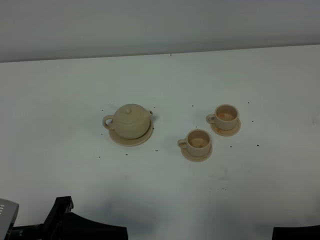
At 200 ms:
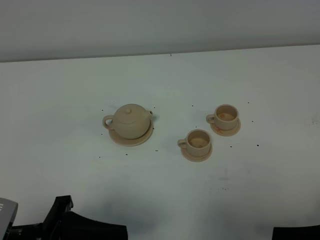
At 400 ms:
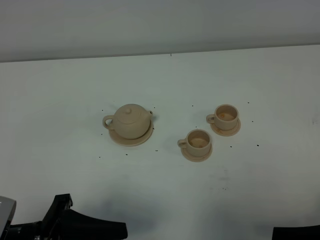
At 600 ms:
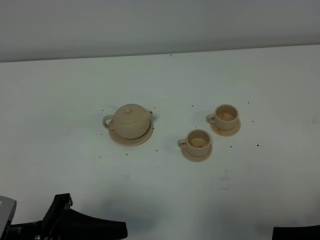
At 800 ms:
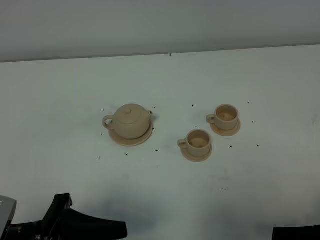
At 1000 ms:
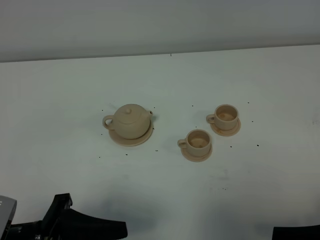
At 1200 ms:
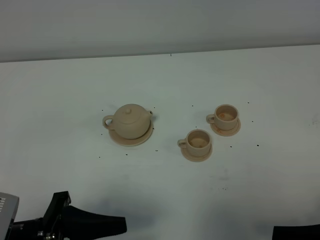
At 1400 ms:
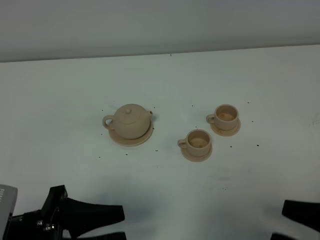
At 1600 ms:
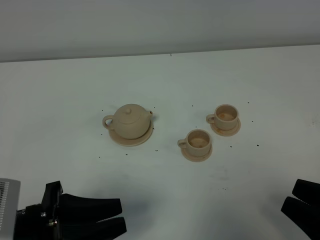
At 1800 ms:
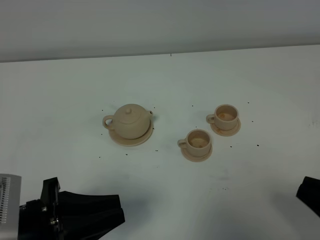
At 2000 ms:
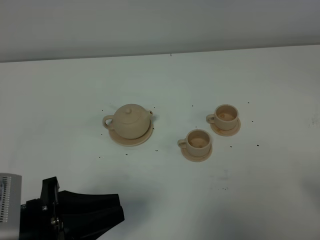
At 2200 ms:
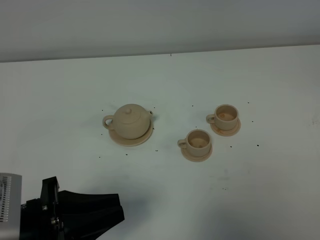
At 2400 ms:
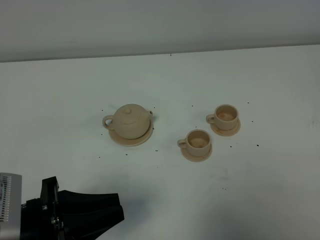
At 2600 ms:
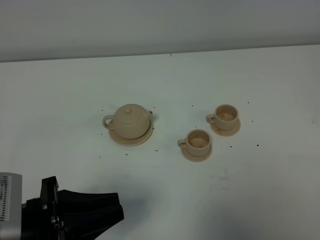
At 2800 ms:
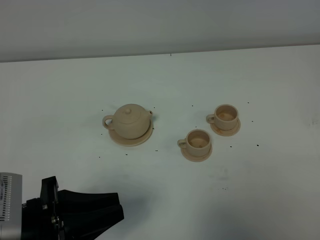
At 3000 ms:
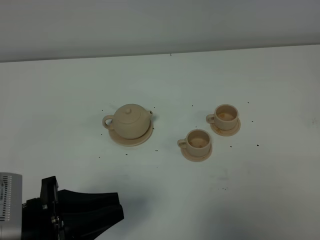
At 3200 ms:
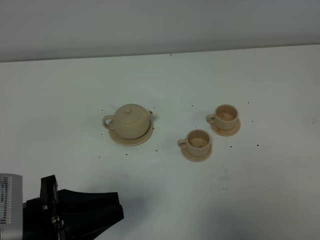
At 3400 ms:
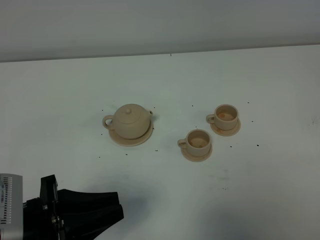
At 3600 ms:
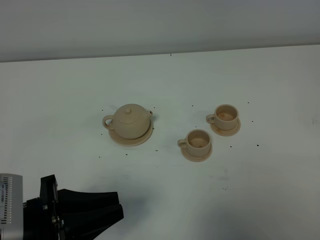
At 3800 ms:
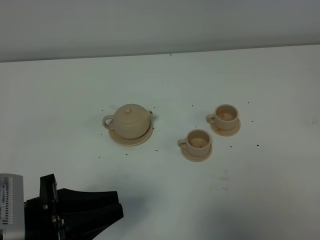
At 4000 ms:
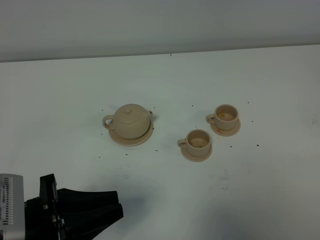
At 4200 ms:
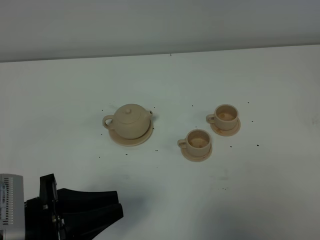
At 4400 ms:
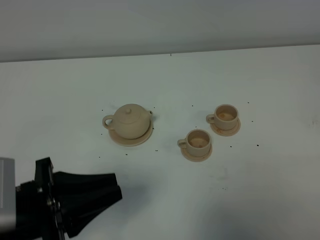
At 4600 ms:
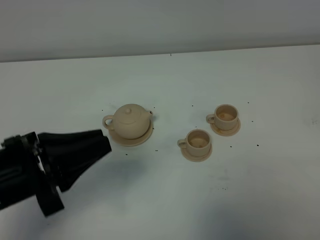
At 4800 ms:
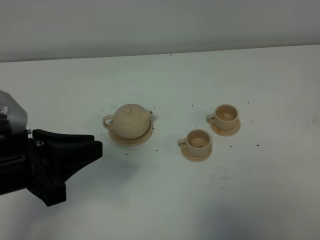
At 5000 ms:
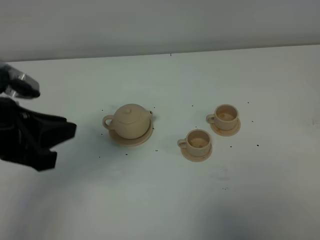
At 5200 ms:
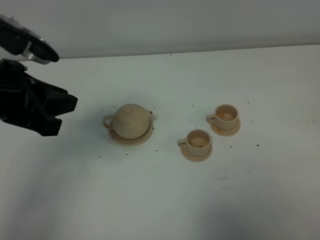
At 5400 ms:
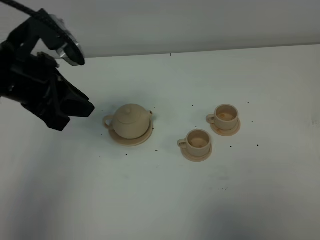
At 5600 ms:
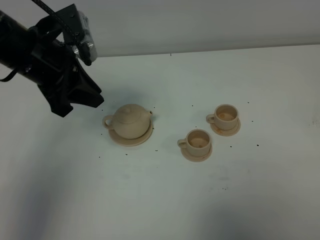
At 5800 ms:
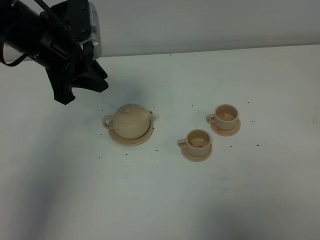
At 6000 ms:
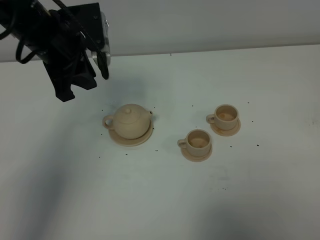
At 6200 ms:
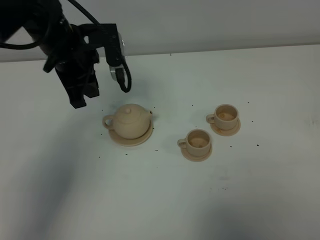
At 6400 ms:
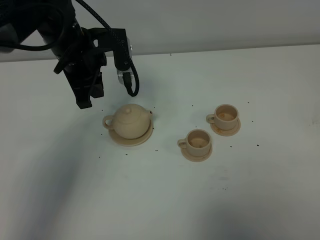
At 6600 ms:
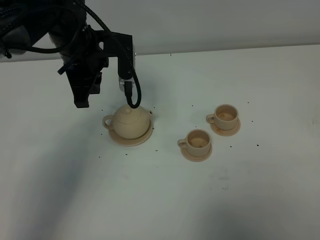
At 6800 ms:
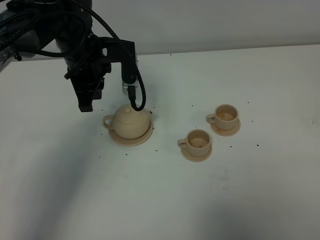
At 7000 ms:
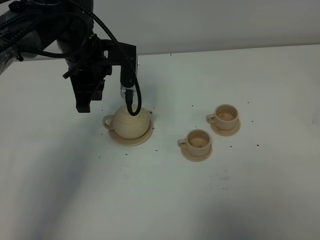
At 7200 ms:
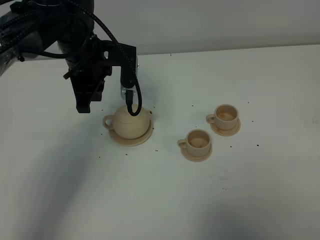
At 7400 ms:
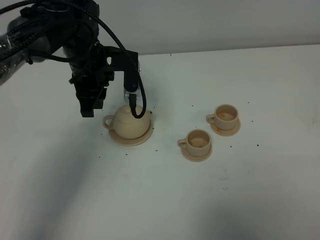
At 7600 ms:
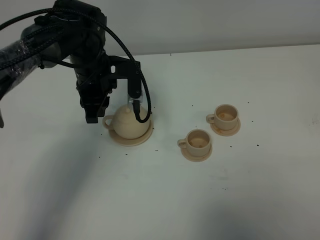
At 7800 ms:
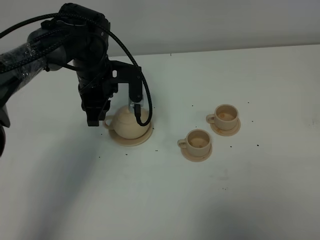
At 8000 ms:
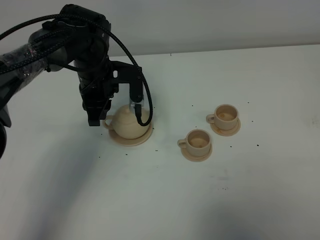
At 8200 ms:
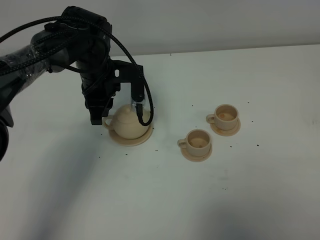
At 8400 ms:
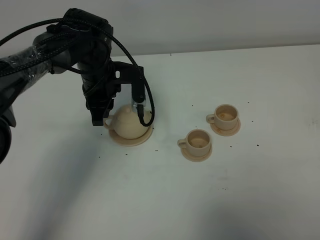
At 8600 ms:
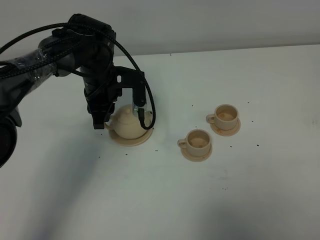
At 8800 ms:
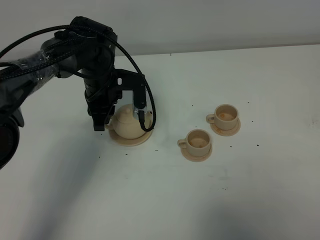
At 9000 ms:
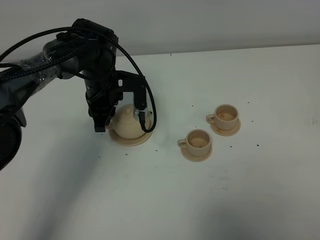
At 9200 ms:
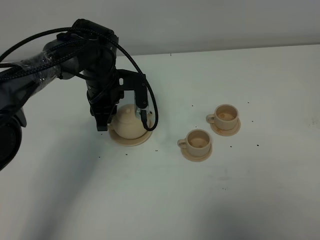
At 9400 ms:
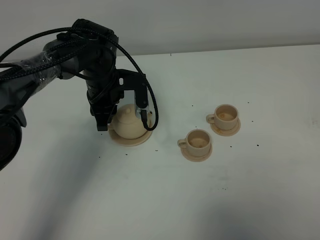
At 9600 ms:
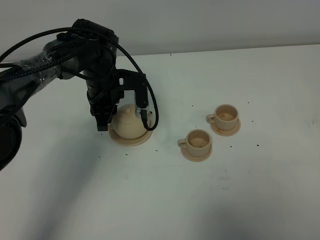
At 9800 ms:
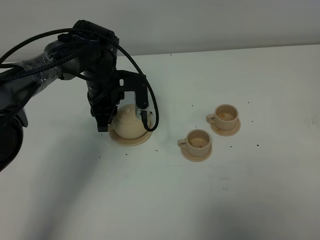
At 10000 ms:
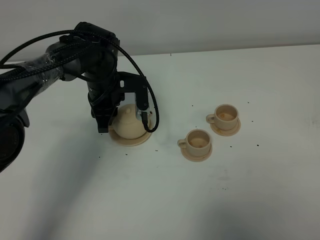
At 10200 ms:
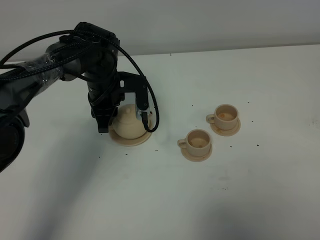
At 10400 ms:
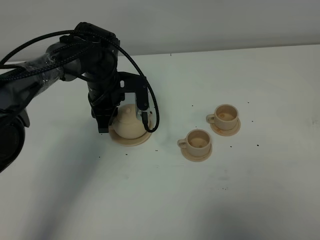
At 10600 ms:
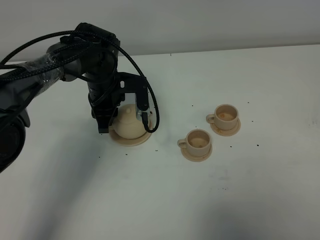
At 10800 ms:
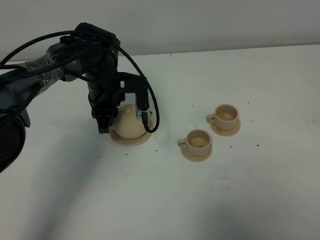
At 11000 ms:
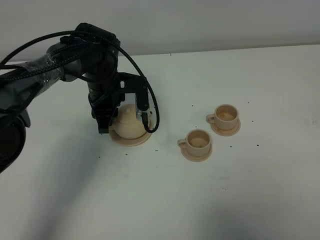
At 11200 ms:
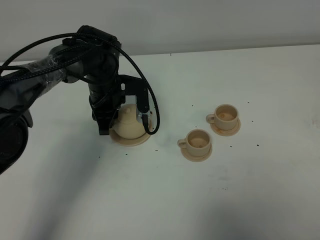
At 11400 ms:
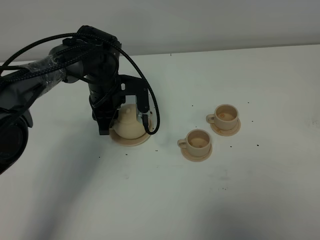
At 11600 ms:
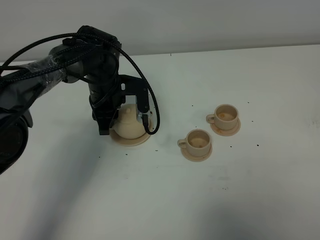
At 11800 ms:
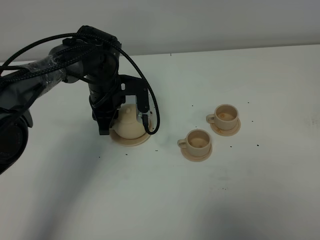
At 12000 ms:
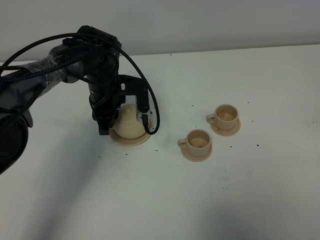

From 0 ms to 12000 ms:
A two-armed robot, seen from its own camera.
Task of the whole recording: grasp the brown teapot and pour the tea into the two brown teacups one by one, put the brown teapot back in its original place.
From 0 ms to 1600 ms: The right gripper closes its fingers.
From 1600 ms to 3000 ms: The right gripper heads to the right, covering roughly 5 cm, and closes.
From 3000 ms to 4400 ms: The grippers move only a little.
From 4400 ms to 6000 ms: The left gripper heads forward, covering about 25 cm.
From 6000 ms to 7600 ms: The left gripper goes about 10 cm downward.
From 7600 ms to 9000 ms: There are only small adjustments of the grippers.
From 9000 ms to 10400 ms: Both grippers stay about where they are.
From 10400 ms to 12000 ms: The two grippers keep their place.

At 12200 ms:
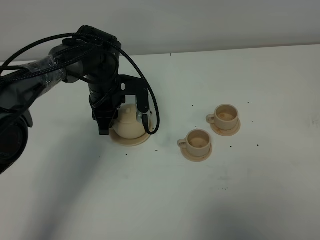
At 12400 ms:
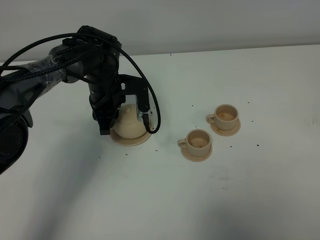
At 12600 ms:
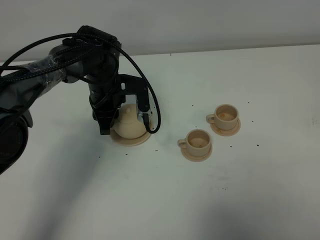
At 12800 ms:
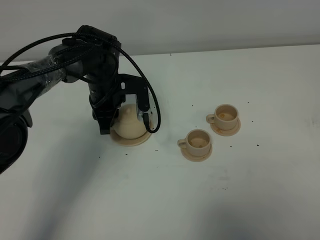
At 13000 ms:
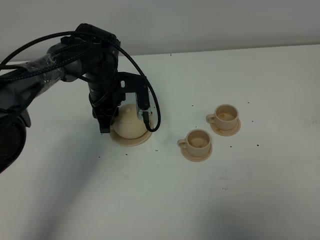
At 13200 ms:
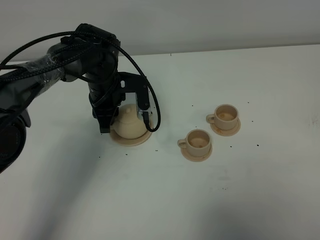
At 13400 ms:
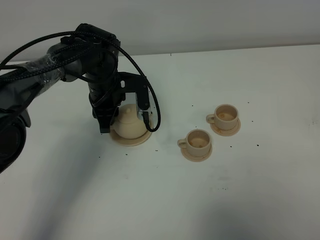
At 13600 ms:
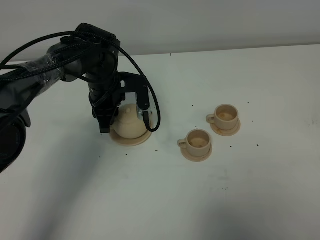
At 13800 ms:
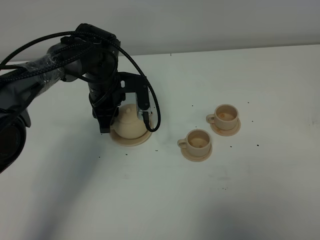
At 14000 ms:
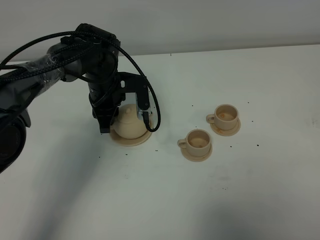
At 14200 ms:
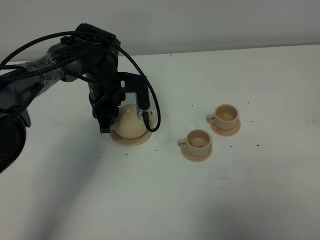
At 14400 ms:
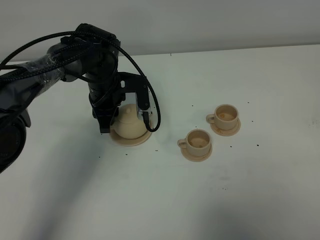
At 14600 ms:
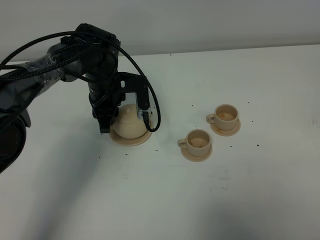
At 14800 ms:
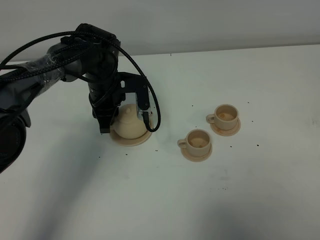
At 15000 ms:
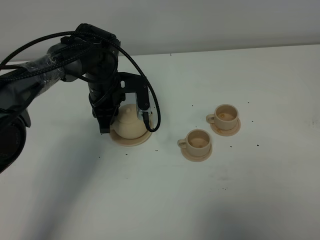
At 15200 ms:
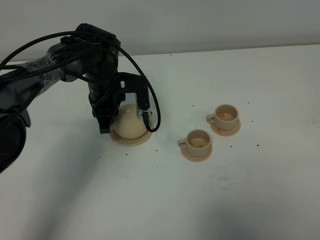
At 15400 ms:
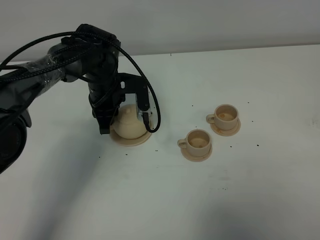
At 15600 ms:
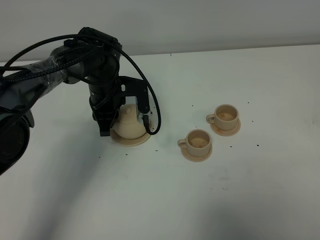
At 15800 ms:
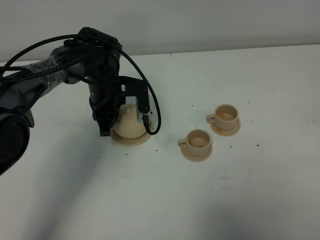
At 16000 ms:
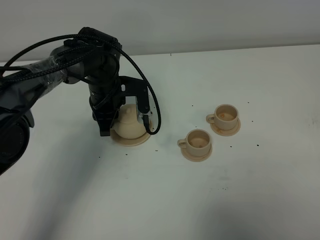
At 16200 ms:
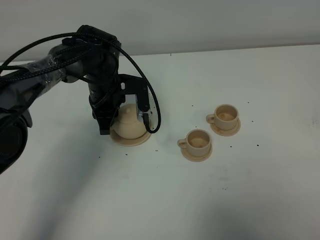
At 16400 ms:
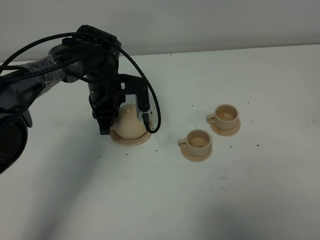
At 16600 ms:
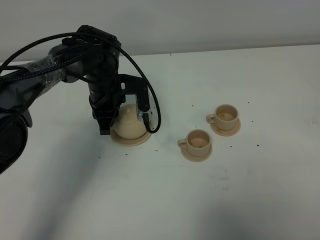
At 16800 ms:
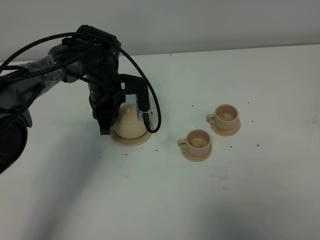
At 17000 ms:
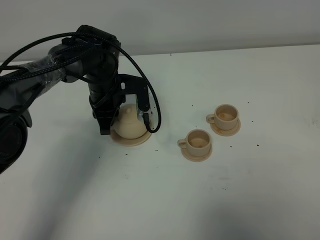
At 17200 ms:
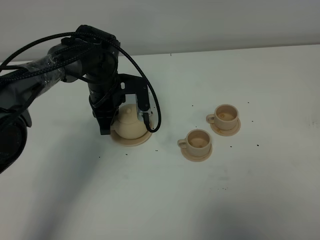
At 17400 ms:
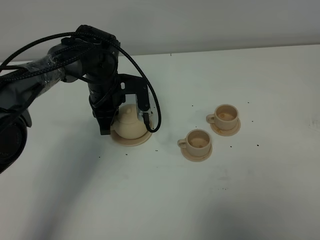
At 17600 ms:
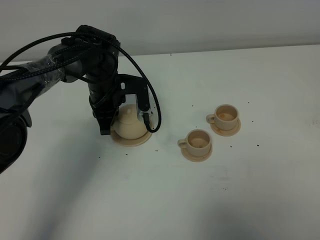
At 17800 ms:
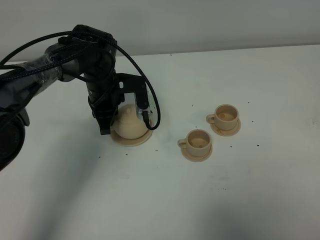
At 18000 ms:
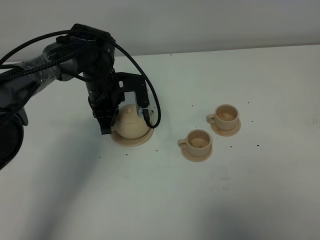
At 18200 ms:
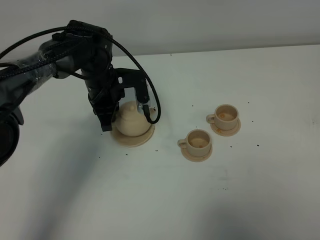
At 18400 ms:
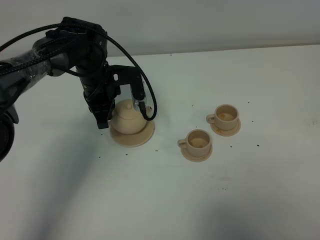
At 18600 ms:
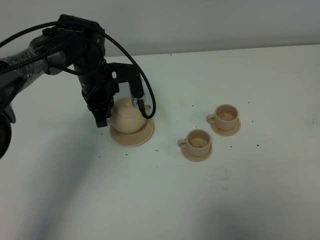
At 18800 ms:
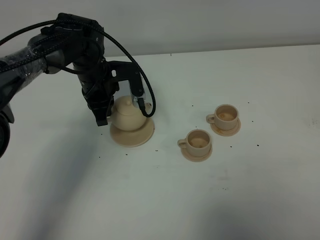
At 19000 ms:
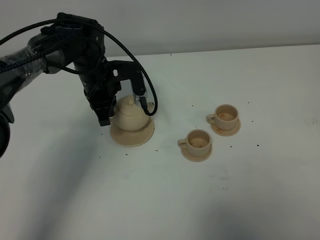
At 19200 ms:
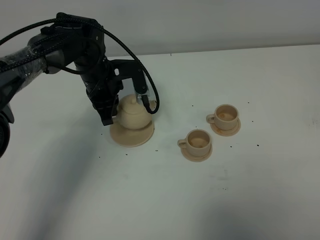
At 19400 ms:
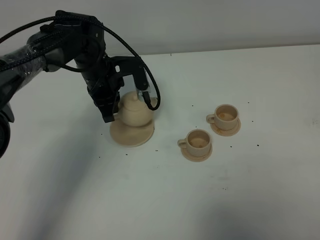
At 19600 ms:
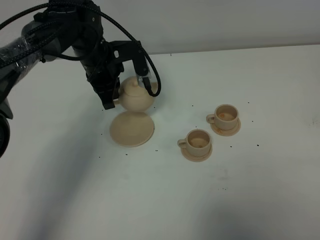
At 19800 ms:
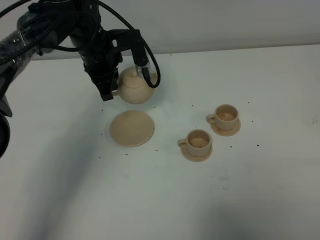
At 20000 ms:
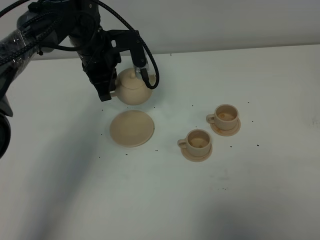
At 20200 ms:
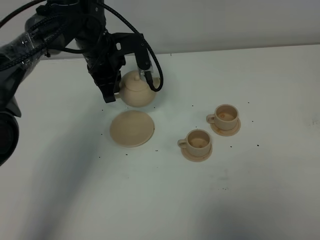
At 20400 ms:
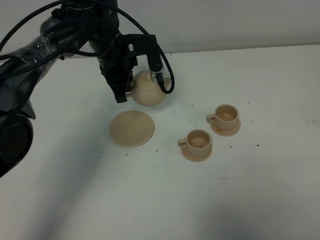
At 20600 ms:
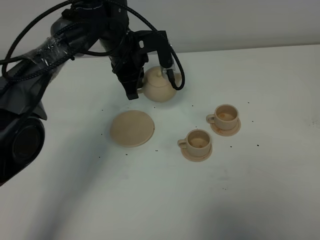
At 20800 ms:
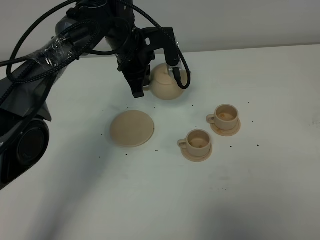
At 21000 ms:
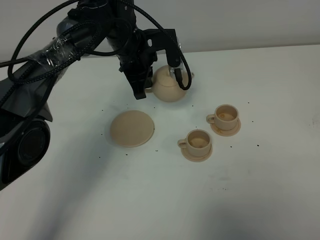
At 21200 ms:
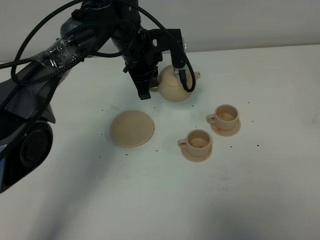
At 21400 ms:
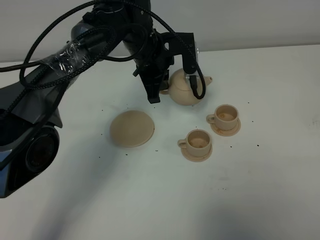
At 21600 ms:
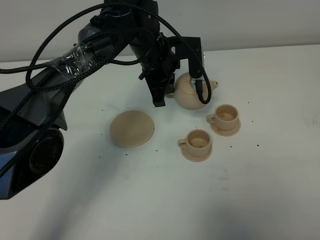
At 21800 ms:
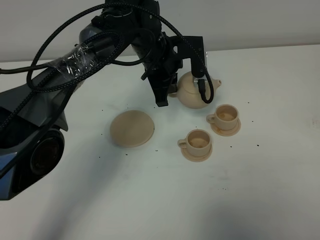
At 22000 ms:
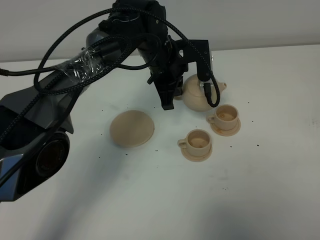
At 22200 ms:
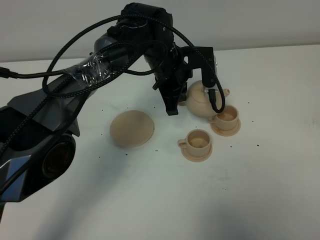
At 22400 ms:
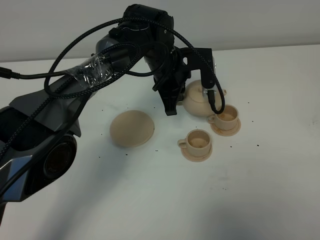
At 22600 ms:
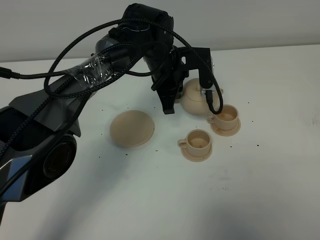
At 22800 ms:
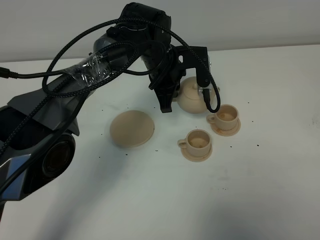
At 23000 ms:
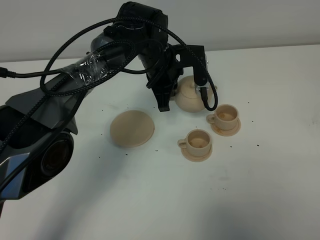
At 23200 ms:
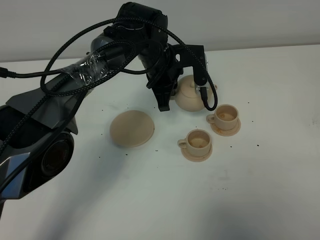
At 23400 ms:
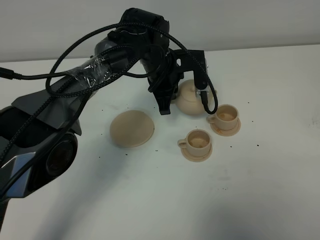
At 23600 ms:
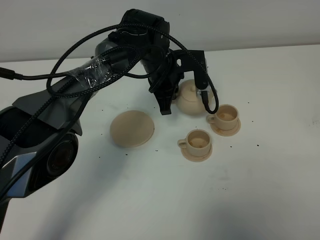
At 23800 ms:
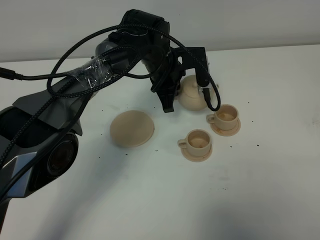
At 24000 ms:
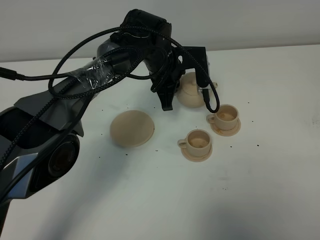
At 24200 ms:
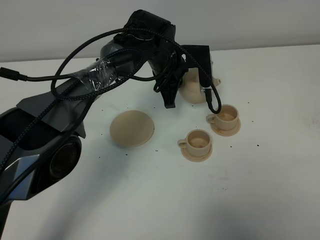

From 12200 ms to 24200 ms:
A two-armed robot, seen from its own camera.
Task of the whole recording: grasp the brown teapot and pour the tea into the two brown teacups one by one, put the brown teapot back in its original place.
Step, from 12200 ms to 17800 ms: Pick up the teapot with the left gripper.
From 12200 ms to 16600 ms: Neither gripper changes place.
From 16600 ms to 18200 ms: The grippers move only a little.
From 18200 ms to 19800 ms: The left gripper goes some 5 cm upward.
From 19800 ms to 21200 ms: The left gripper goes approximately 10 cm to the right.
From 21200 ms to 22600 ms: The left gripper changes place by some 5 cm.
From 22600 ms to 24200 ms: The grippers move only a little.
